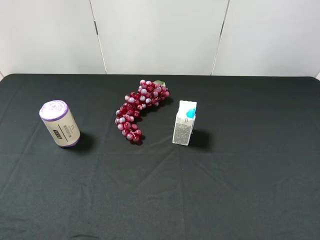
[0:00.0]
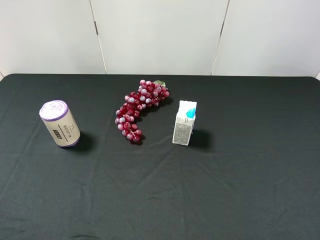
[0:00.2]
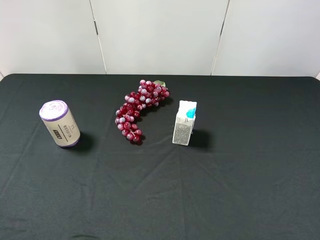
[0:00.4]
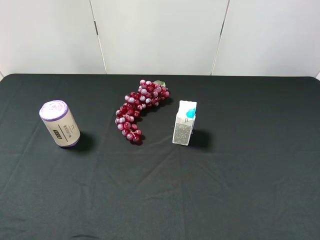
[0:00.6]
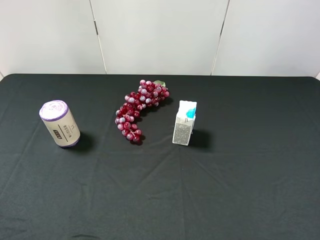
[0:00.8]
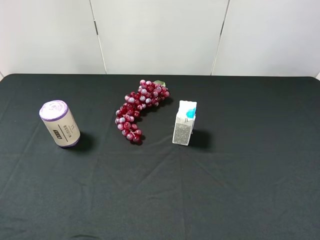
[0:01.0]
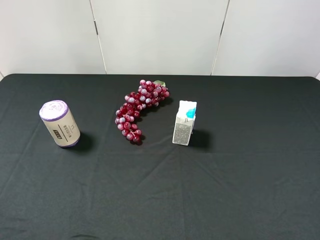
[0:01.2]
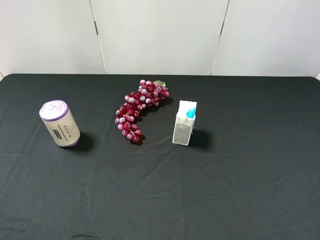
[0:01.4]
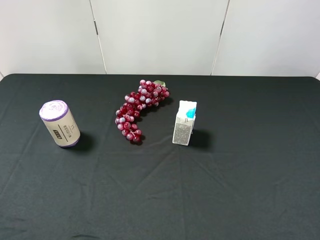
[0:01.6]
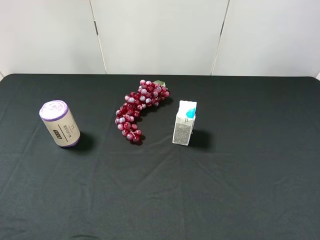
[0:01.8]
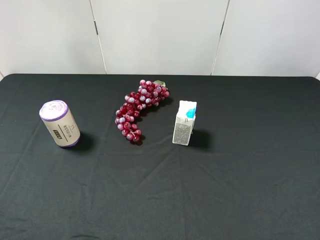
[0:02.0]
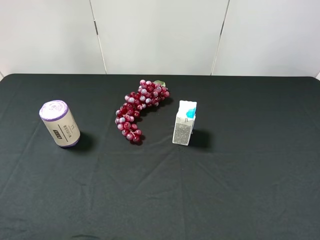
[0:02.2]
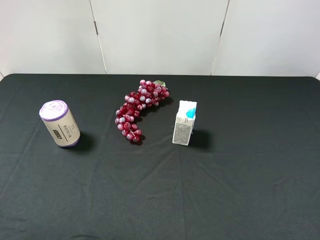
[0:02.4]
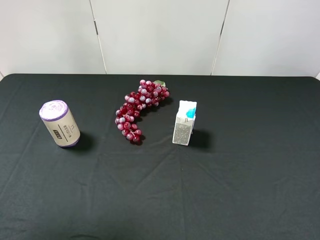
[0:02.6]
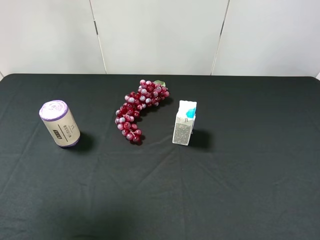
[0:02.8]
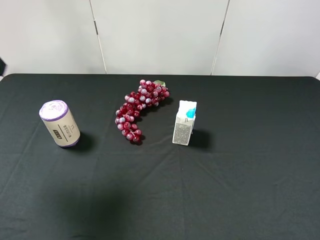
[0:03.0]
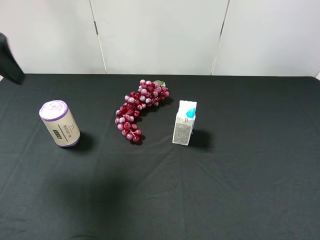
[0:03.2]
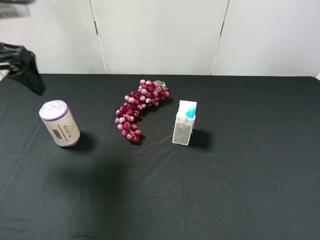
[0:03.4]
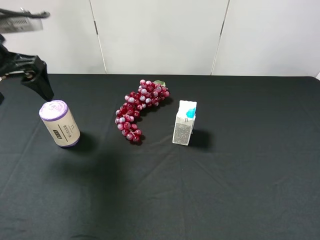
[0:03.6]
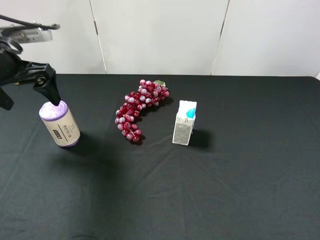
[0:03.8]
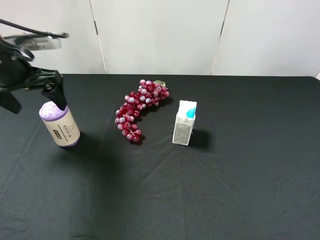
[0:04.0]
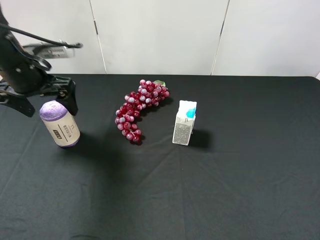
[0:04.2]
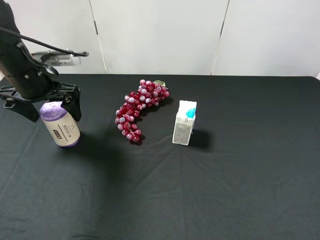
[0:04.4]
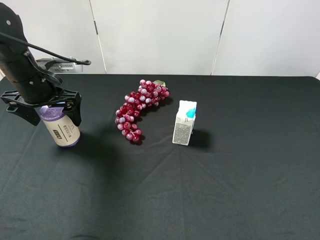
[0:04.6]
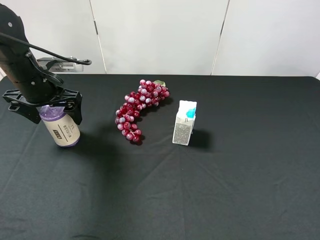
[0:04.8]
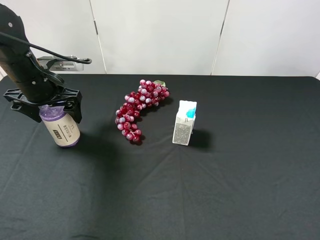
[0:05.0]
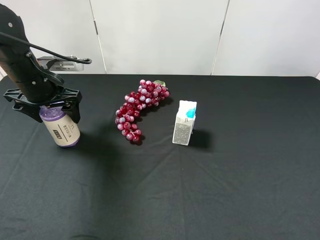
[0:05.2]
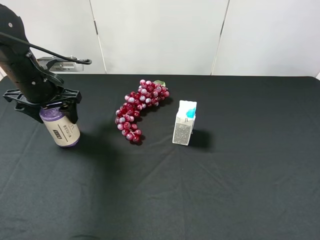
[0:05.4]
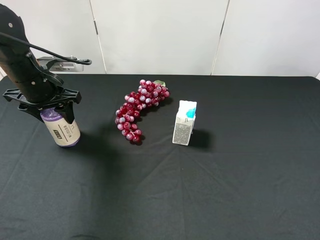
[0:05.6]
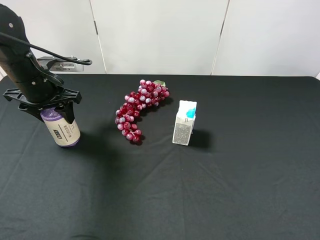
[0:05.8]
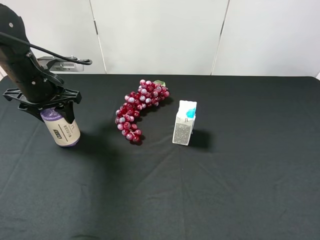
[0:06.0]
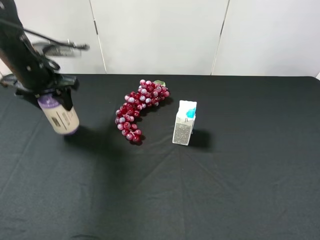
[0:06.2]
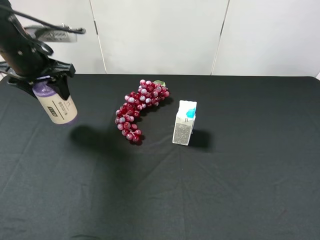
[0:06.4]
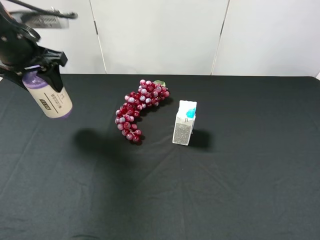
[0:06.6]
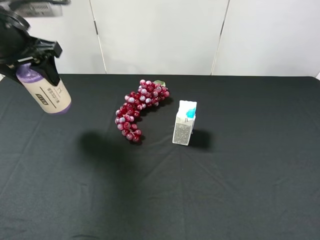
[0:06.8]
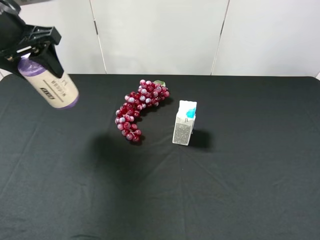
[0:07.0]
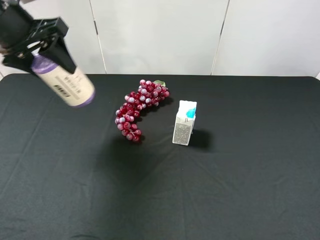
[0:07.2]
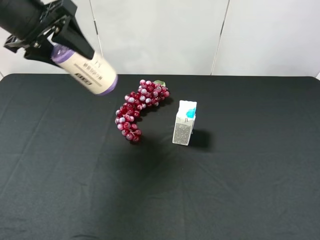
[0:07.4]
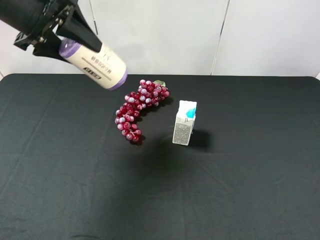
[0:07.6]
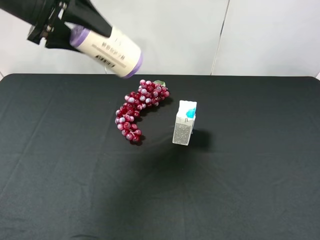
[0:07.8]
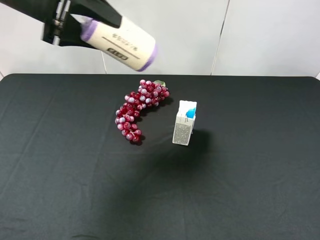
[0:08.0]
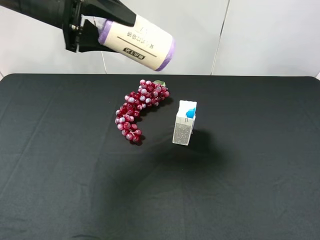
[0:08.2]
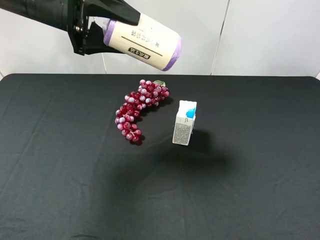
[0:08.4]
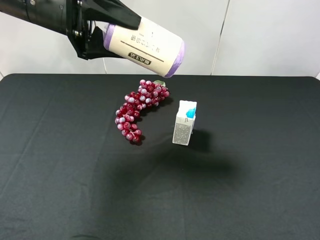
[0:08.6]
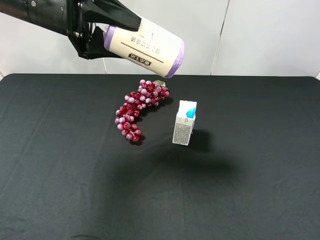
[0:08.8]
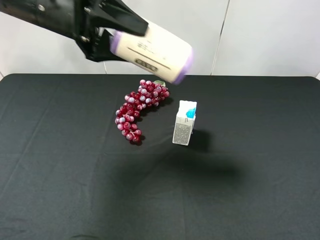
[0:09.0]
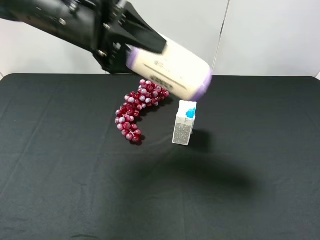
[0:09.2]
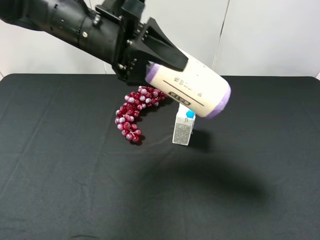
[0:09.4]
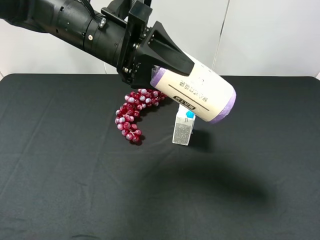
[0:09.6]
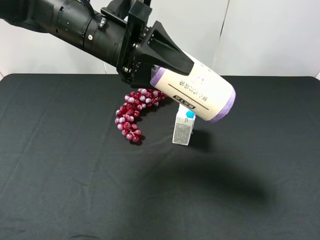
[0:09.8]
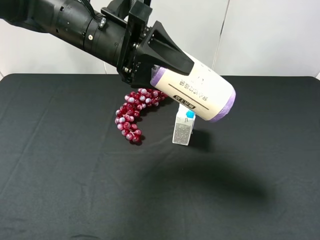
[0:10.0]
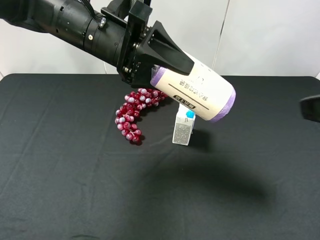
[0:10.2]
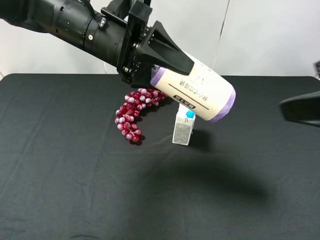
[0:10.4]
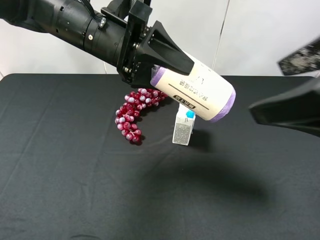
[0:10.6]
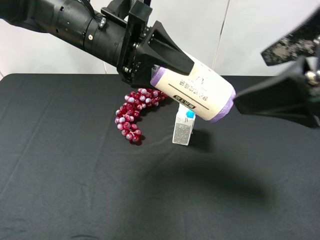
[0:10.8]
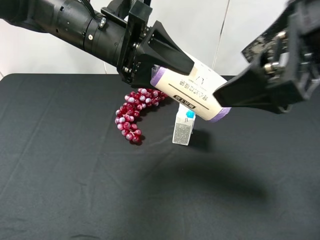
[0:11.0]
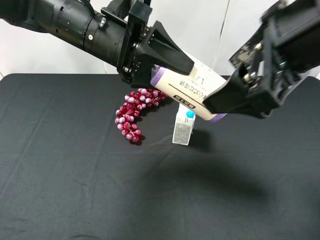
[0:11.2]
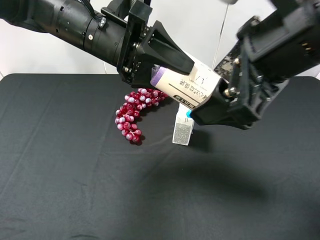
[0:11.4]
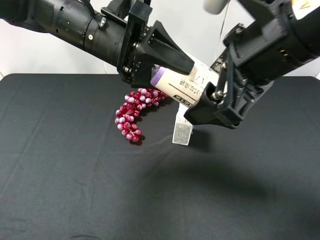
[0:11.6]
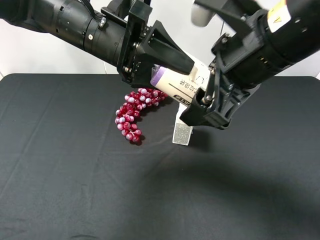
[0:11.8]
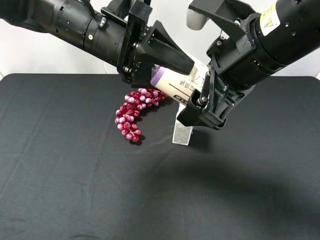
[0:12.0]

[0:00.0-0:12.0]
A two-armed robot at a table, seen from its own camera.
Task of the whole recording: use the left gripper to pick up the item and transfer it from the left gripper to the right gripper.
0:00.0 to 0:01.6: Both grippers stay put.
0:01.6 to 0:03.0: The left gripper travels forward by approximately 20 cm.
0:03.0 to 0:04.4: The left gripper is displaced downward and forward by approximately 20 cm.
0:04.4 to 0:06.0: The left gripper closes its fingers.
0:06.0 to 0:07.6: The left gripper is displaced upward by some 15 cm.
0:07.6 to 0:09.0: The left gripper is displaced to the right by some 5 cm.
0:09.0 to 0:10.4: The right gripper travels forward, upward and to the left by about 15 cm, while the left gripper travels to the right by about 5 cm.
0:10.4 to 0:12.0: The right gripper is displaced to the left and forward by roughly 15 cm.

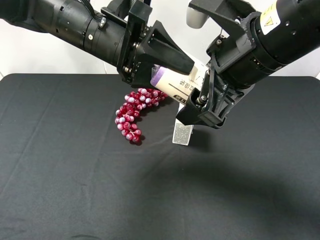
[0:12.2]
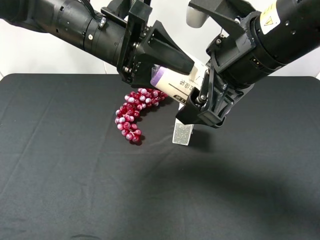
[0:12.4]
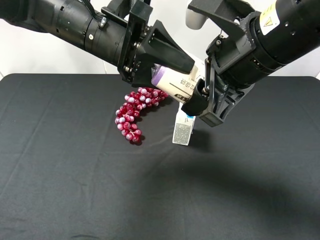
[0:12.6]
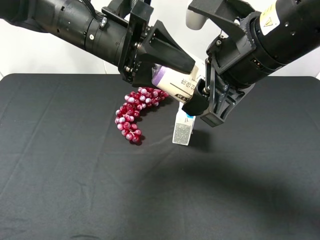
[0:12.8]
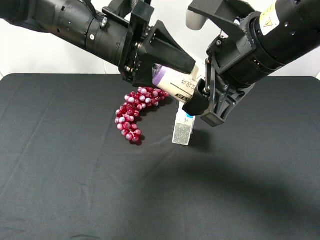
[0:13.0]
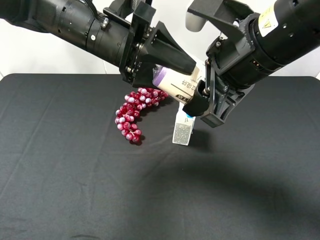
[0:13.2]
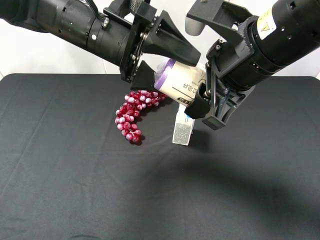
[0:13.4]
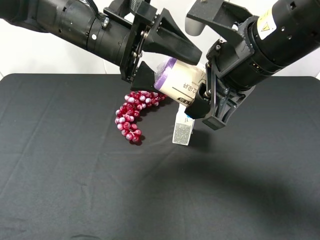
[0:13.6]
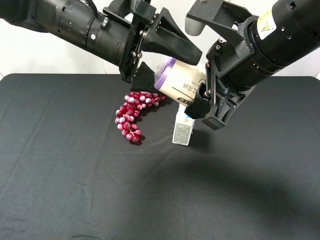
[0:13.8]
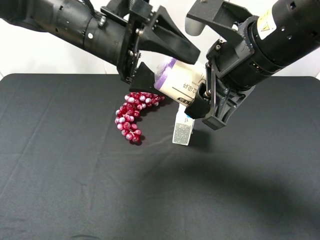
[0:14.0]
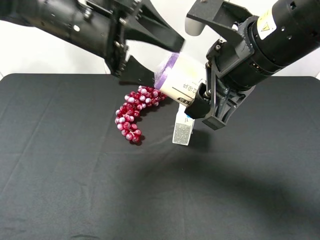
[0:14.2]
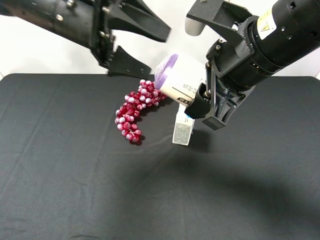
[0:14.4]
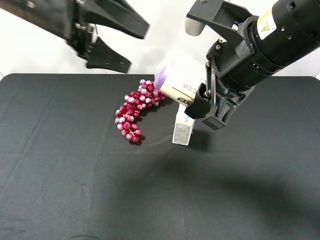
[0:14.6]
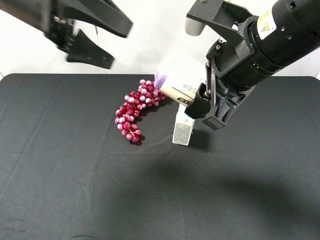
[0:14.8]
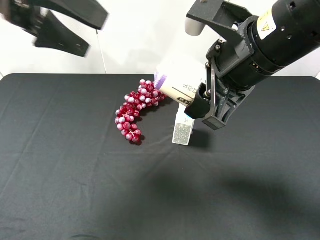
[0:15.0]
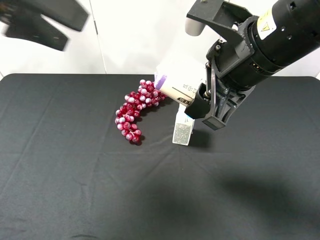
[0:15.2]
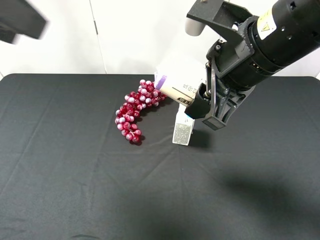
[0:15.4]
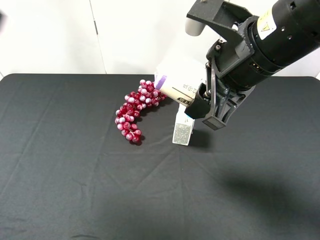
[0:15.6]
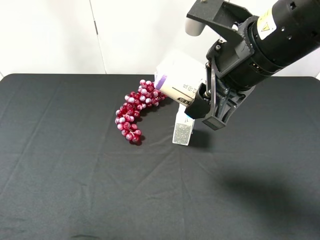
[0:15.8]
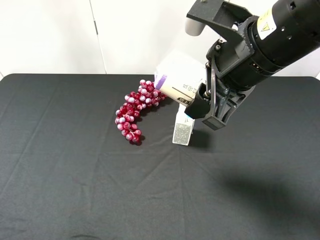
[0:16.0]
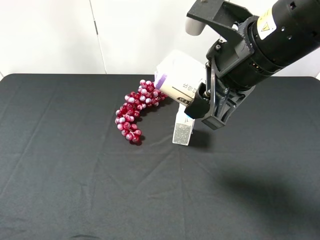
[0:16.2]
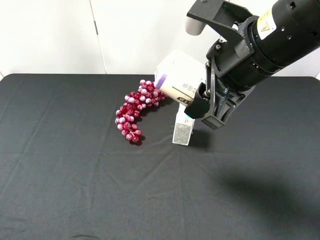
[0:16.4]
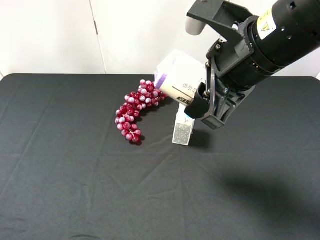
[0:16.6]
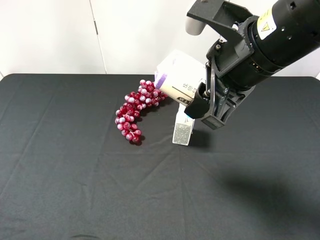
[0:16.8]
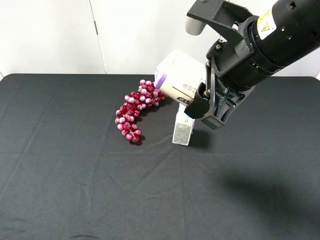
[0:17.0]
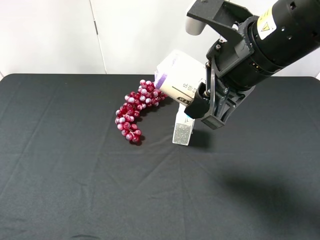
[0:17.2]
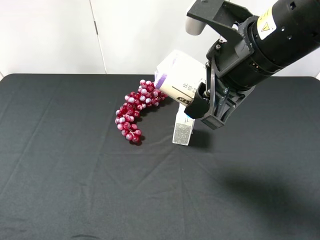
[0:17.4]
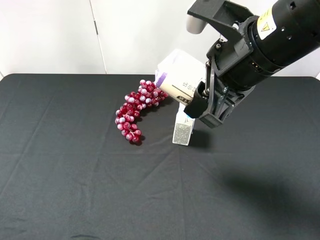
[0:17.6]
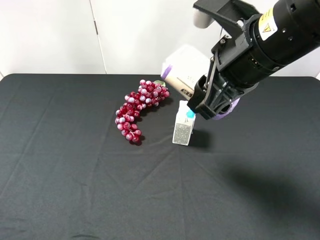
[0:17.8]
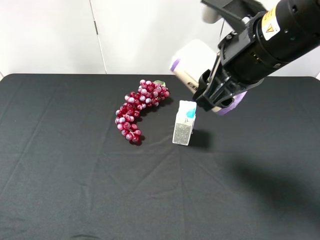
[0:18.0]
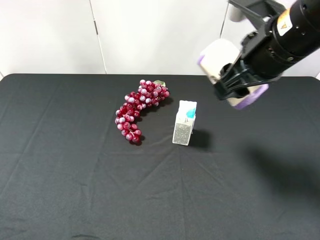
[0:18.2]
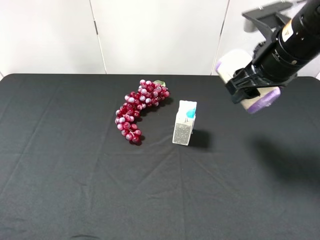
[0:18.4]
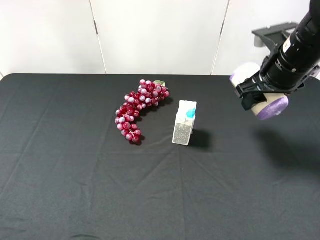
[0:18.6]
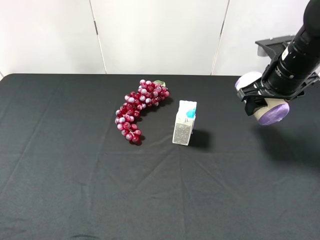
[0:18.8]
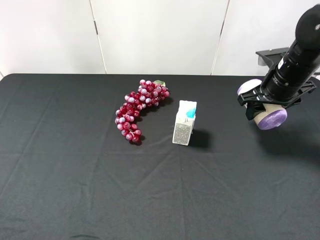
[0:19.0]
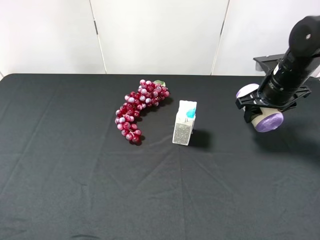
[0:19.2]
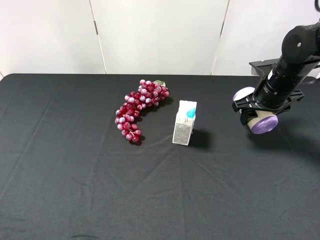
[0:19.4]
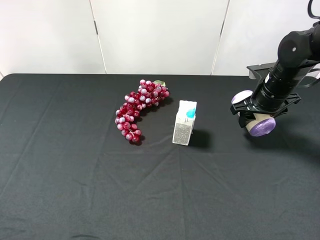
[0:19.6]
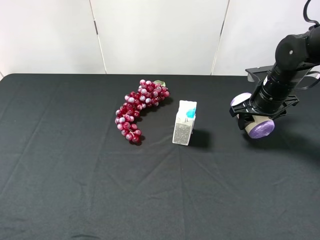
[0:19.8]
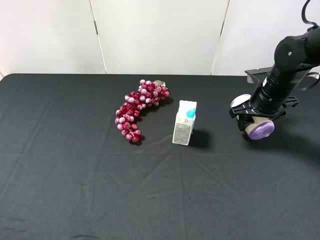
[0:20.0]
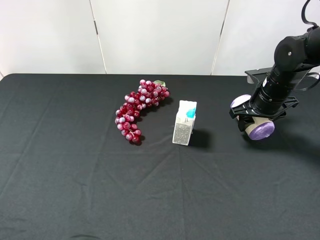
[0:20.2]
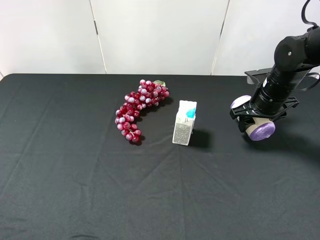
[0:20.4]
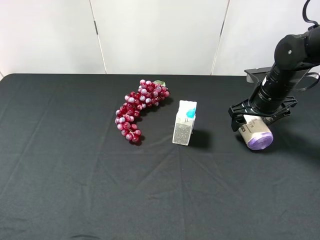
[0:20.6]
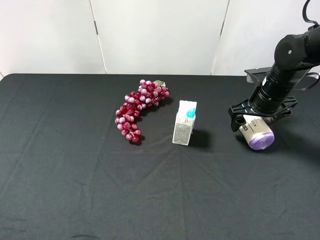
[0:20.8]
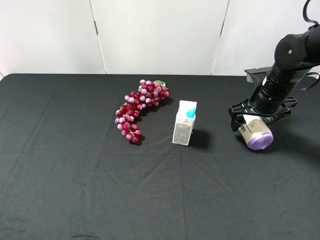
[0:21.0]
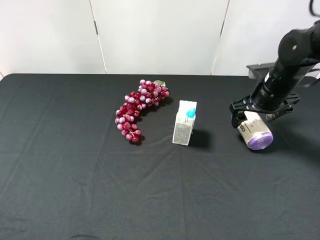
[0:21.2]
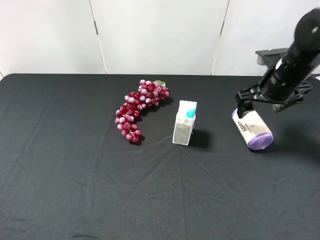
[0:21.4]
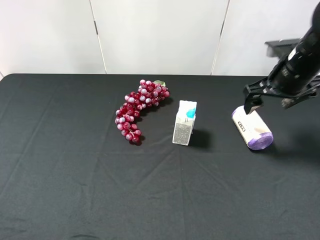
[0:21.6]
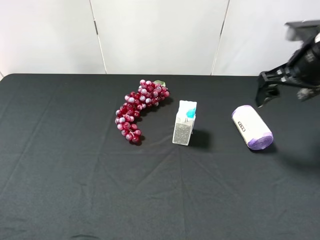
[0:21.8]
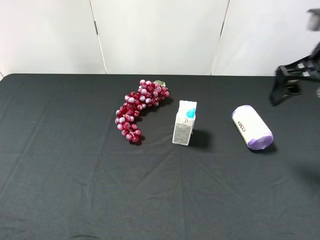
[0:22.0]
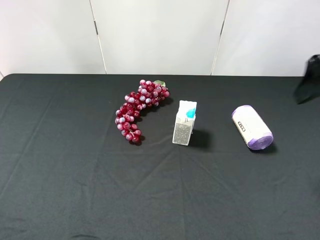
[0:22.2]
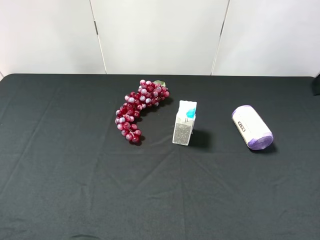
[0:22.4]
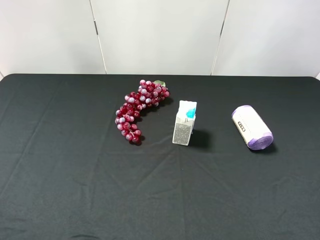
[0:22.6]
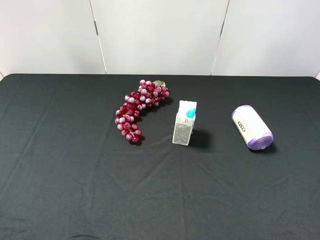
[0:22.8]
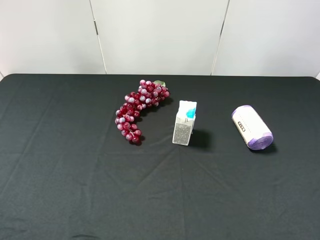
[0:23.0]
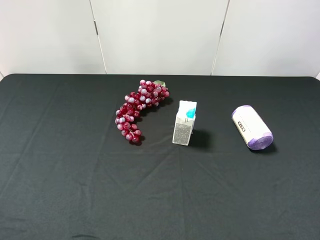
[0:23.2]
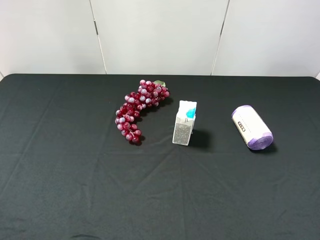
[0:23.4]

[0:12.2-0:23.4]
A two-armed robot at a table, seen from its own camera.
Task of the whole recording: use the left gripper to pick up the item and transfer it from the left gripper to the right gripper.
0:12.2 to 0:13.8: The left gripper opens. The right gripper closes up.
0:13.8 to 0:15.4: The left gripper is displaced to the left, upward and backward by approximately 25 cm.
0:15.4 to 0:17.0: The left gripper is displaced backward and downward by some 20 cm.
0:17.0 to 0:18.6: The right gripper is displaced to the right, forward and downward by approximately 15 cm.
0:18.6 to 0:20.2: The right gripper travels downward by about 10 cm.
0:20.2 to 0:21.8: The right gripper is displaced upward and backward by about 15 cm, and opens its fingers.
0:21.8 to 0:23.4: The right gripper is displaced backward by approximately 25 cm.
